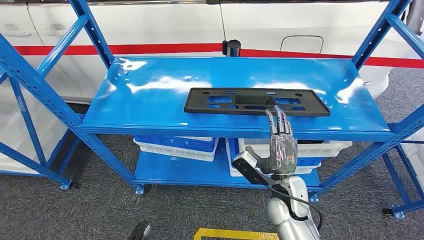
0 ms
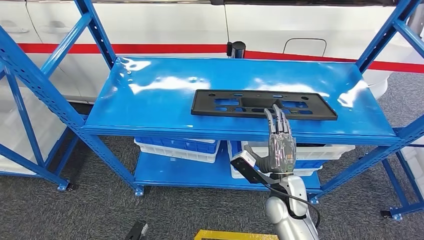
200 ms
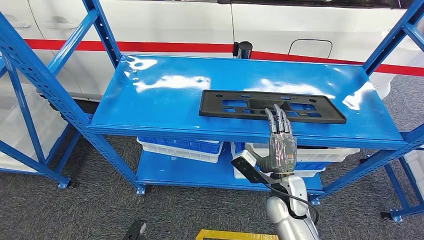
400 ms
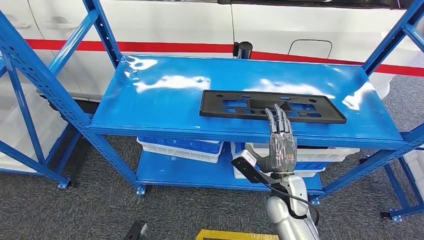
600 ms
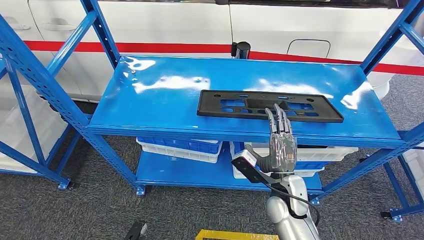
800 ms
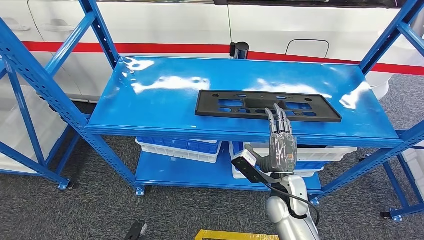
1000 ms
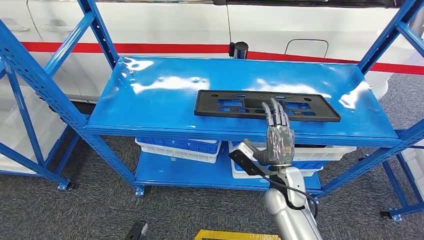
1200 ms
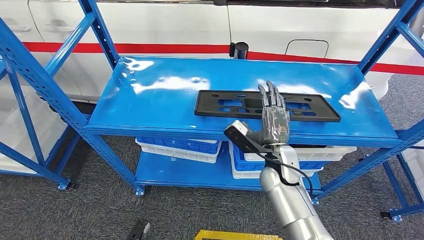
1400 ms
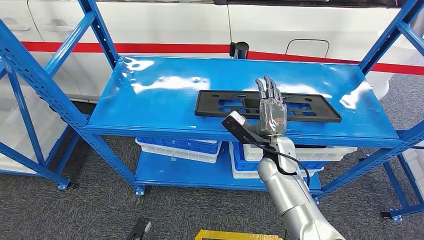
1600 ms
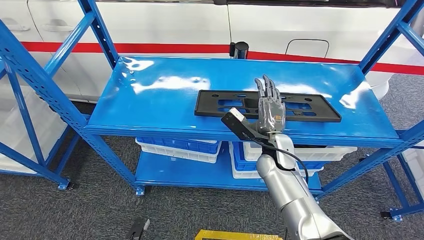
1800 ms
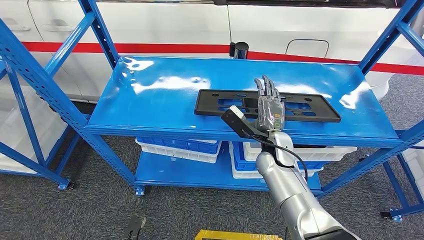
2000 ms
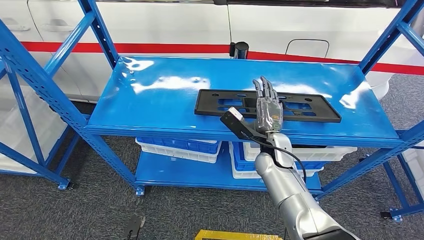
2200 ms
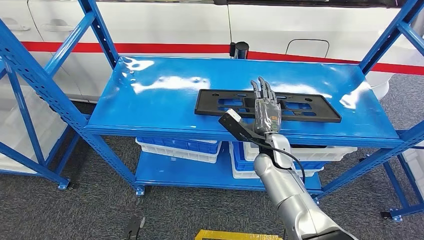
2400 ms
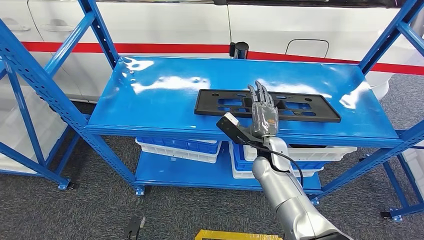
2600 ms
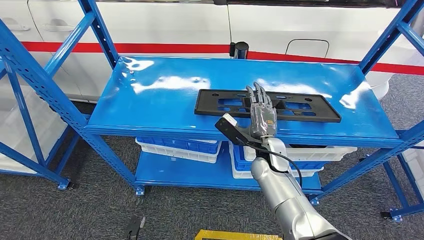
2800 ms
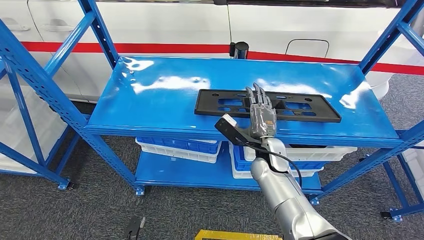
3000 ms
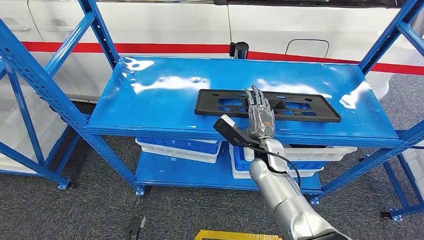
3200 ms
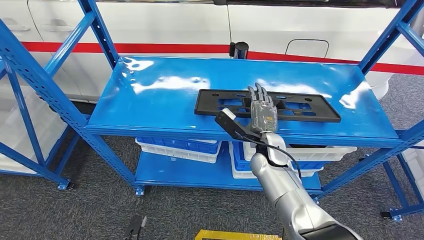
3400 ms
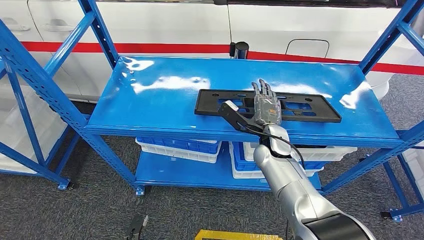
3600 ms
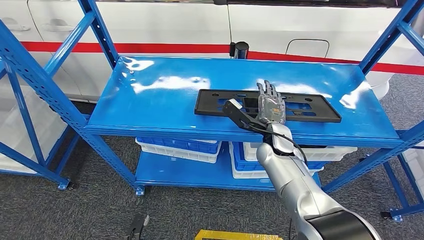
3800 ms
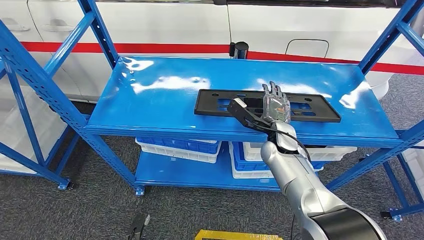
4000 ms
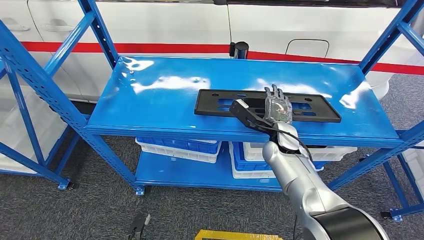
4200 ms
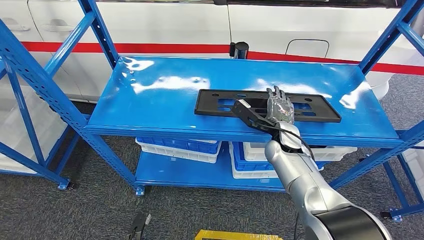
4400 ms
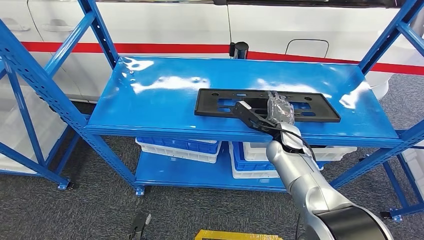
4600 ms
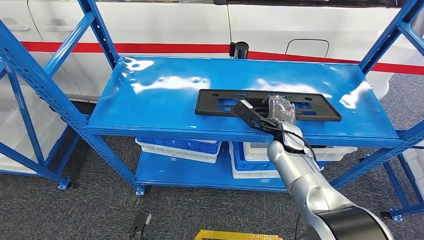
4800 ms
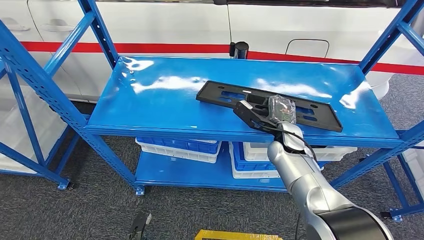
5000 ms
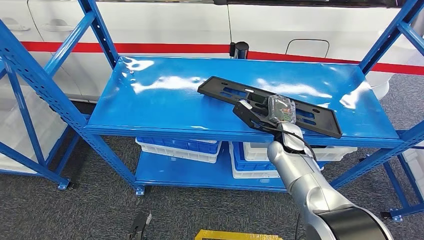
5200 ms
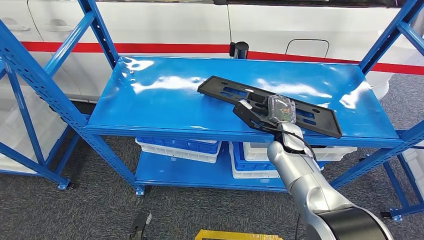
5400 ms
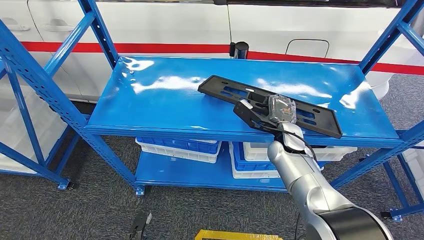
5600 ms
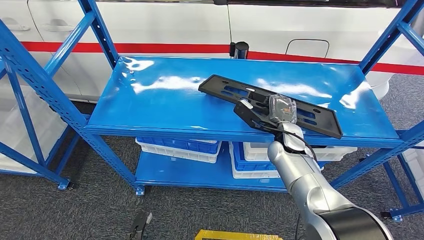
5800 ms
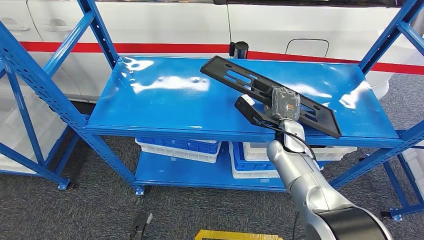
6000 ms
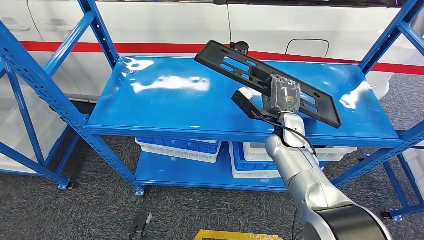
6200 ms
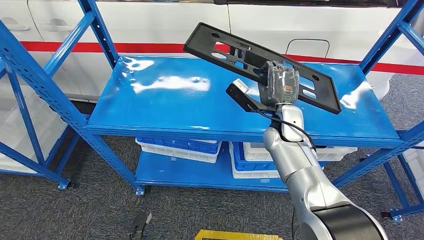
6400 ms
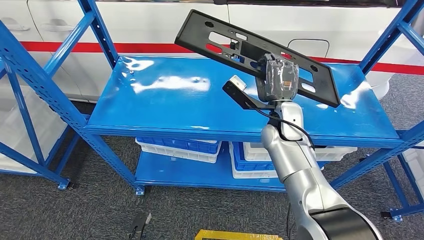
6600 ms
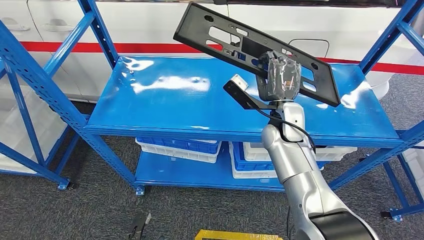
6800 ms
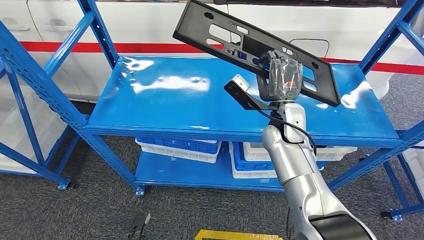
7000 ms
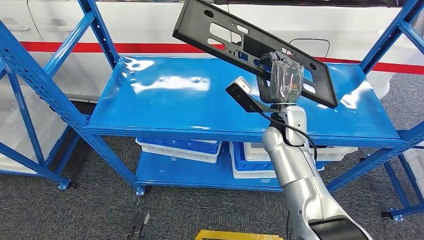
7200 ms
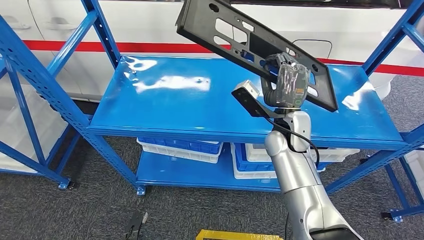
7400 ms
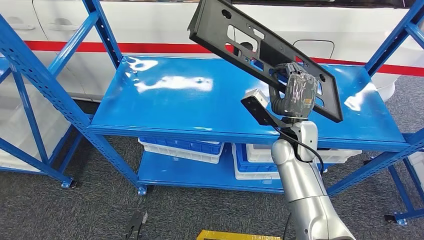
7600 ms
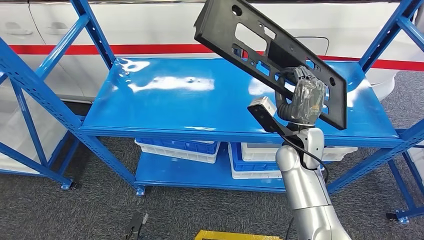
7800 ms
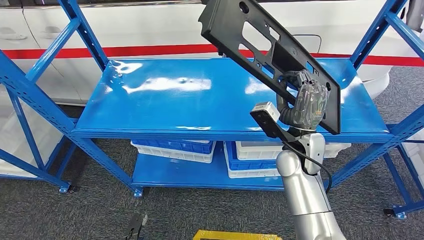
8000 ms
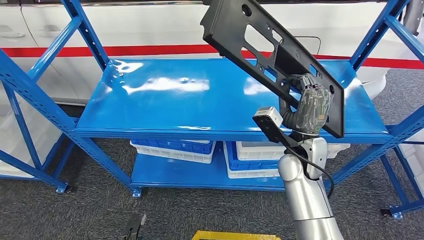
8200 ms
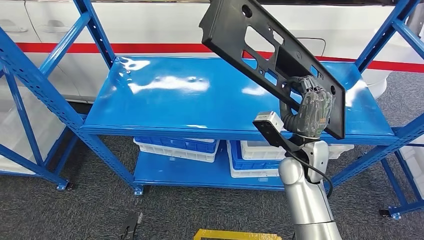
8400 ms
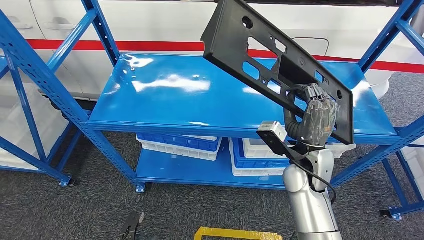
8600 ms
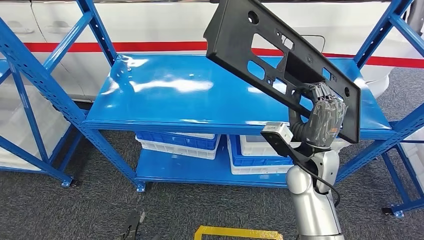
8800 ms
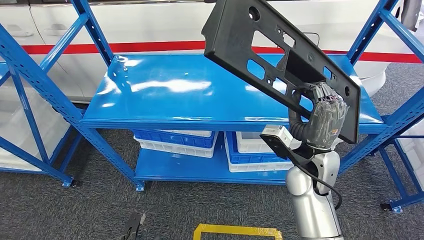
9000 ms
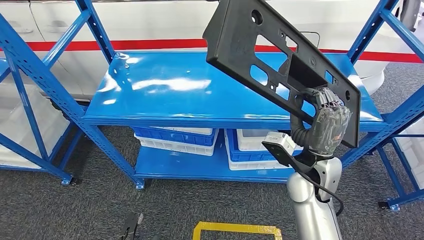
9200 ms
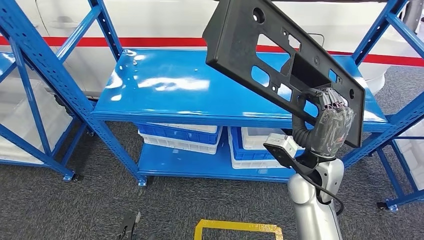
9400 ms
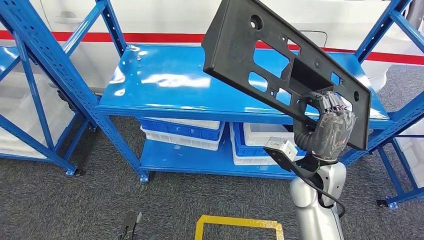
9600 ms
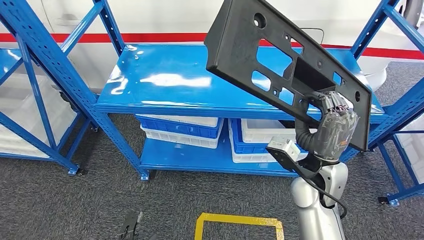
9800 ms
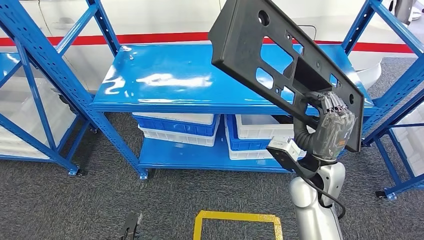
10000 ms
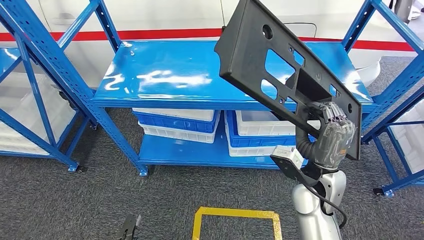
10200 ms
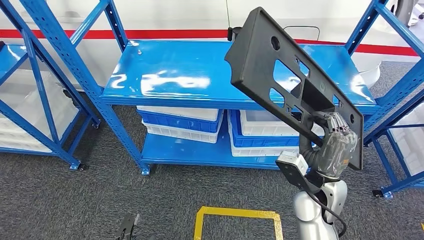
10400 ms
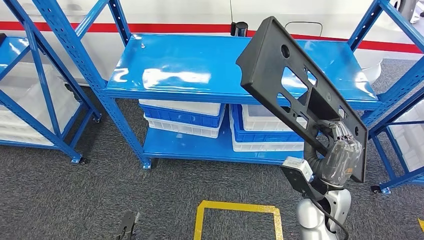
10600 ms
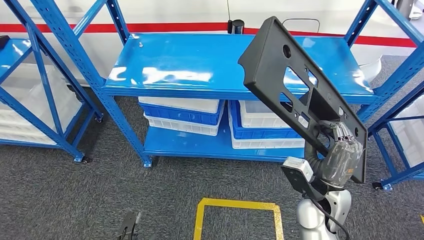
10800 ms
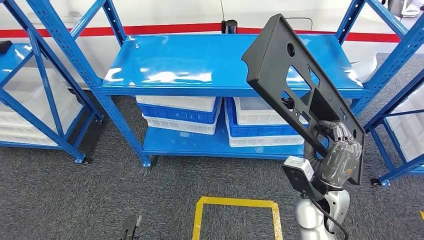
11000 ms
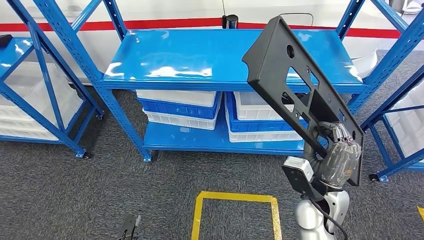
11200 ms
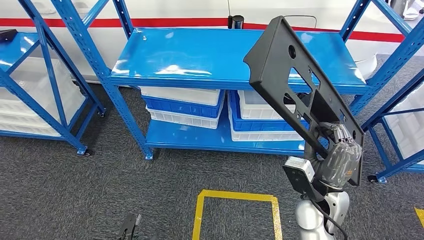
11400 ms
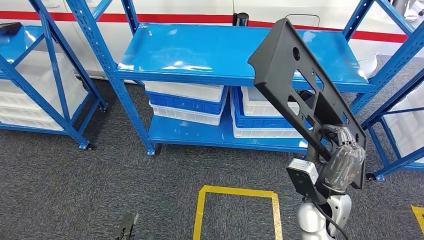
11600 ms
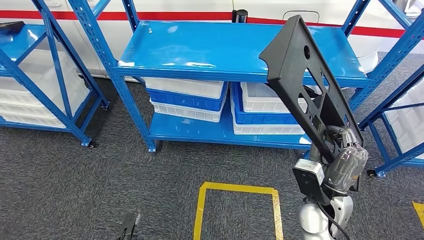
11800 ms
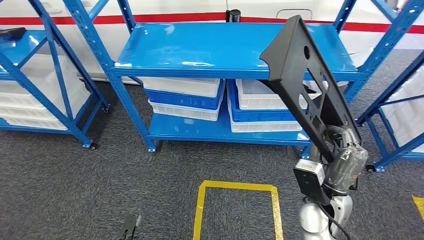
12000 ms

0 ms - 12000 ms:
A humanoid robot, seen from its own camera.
Step, 0 ms - 8000 ms: Pick up the large material from the shelf.
1600 ms - 3000 ms: The hands move only a little.
3000 ms - 4400 ms: The right hand moves some 5 cm.
4400 ms - 6000 ms: The hands move only a little.

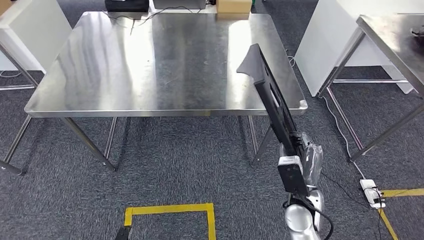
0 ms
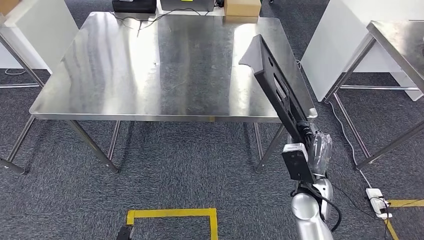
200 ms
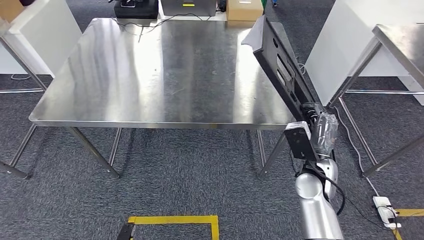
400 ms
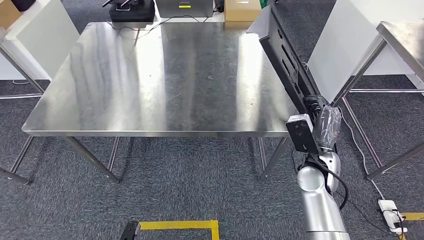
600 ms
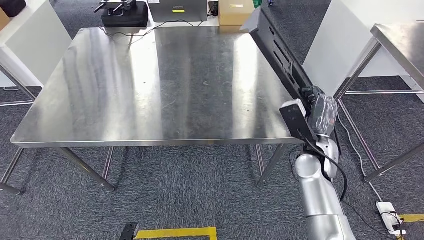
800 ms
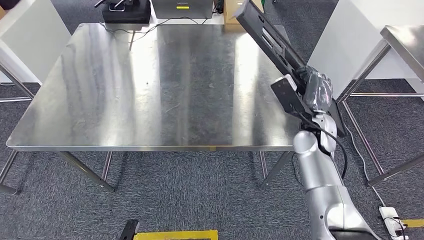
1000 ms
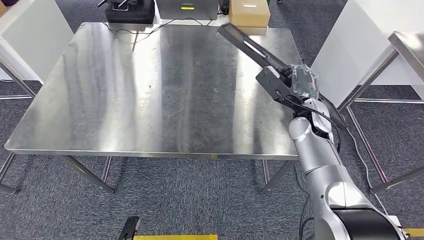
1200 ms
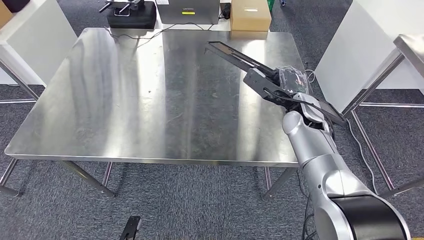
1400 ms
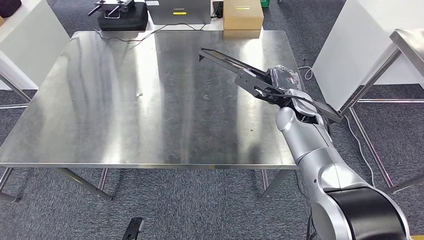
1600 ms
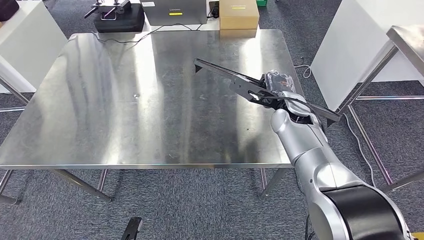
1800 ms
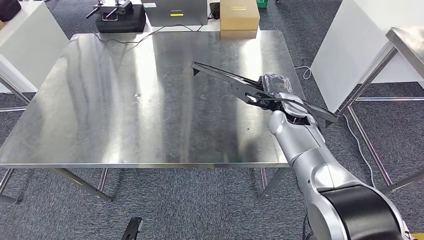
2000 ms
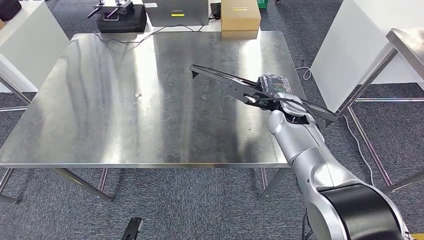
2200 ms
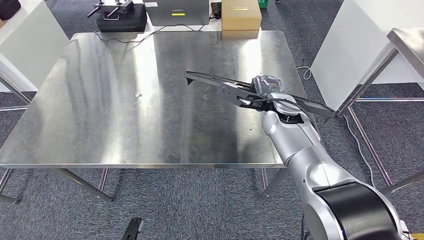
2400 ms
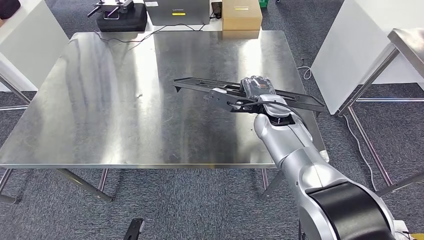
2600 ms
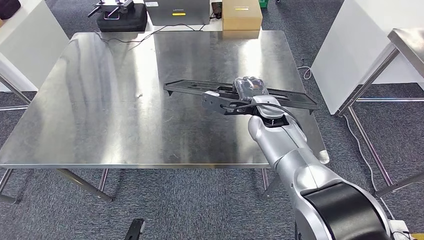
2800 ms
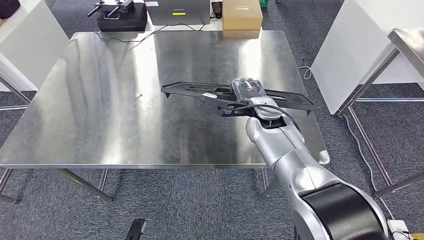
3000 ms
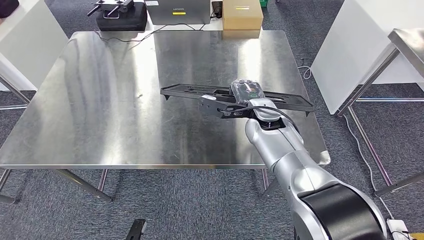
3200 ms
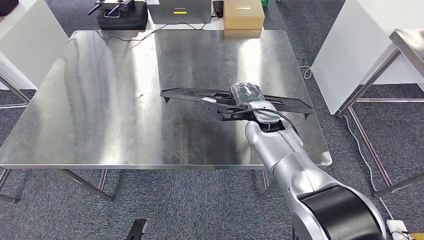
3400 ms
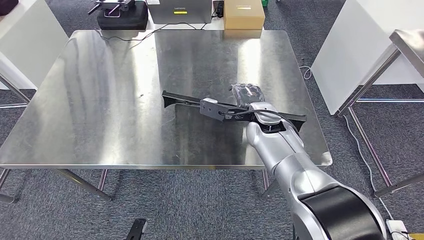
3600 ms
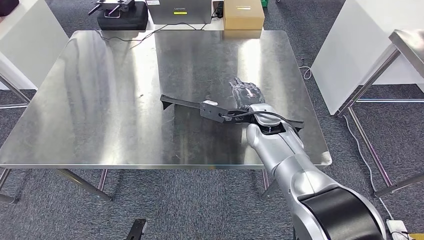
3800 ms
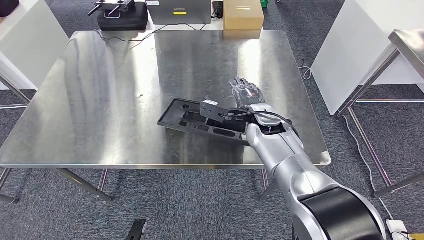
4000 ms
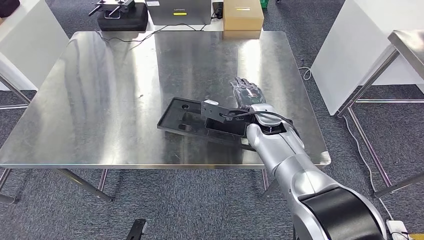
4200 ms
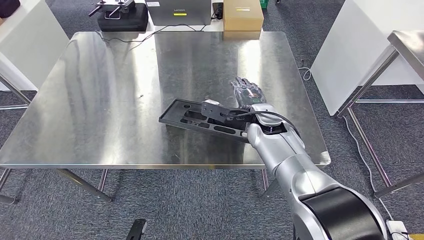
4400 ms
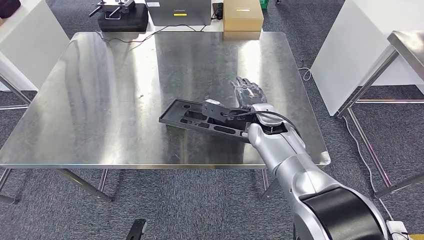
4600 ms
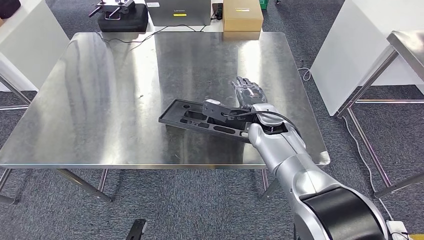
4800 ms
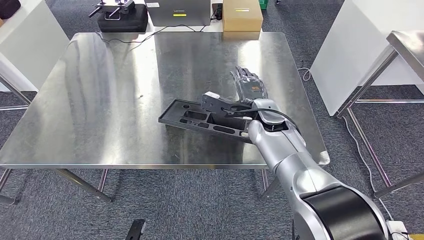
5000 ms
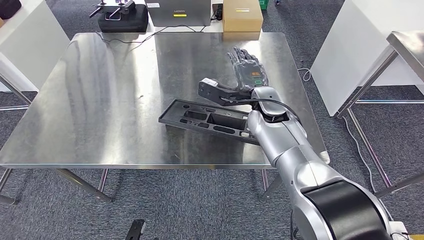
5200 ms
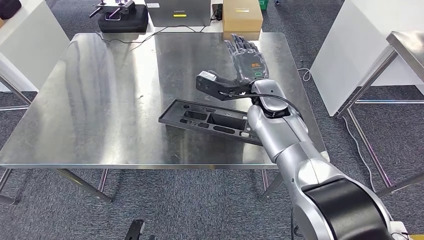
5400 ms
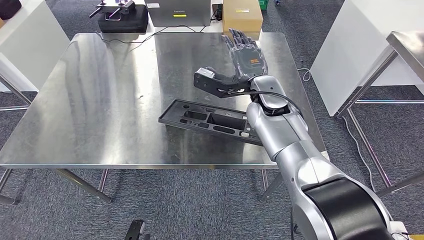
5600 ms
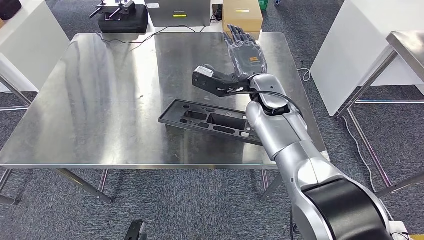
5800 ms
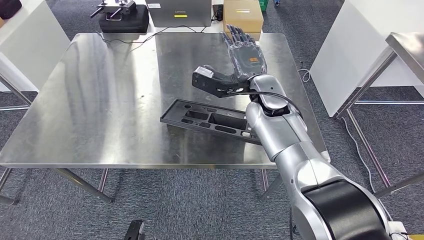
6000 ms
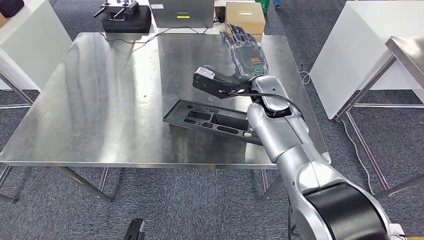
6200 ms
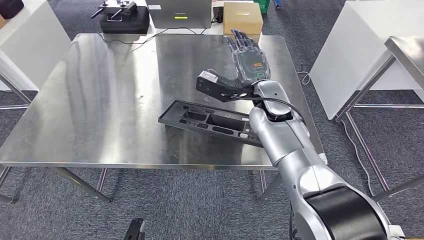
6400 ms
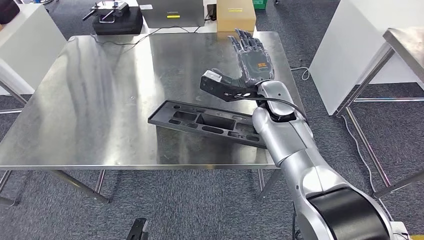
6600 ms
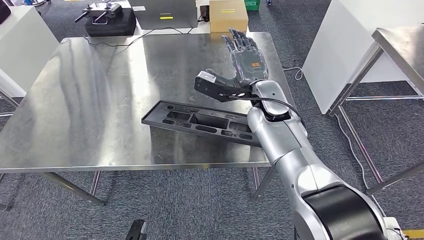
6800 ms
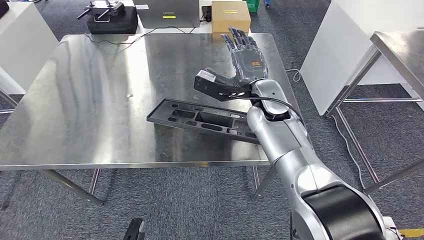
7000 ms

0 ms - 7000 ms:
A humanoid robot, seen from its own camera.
Step, 400 ms - 6000 ms: Insert the large material into the corresponding slot on the workbench.
2800 ms - 4200 ms: The hands stay close to where they were, moving slightly.
4200 ms - 5600 ms: The right hand moves upward, about 5 cm.
